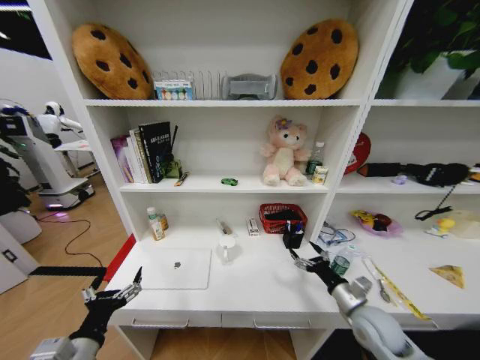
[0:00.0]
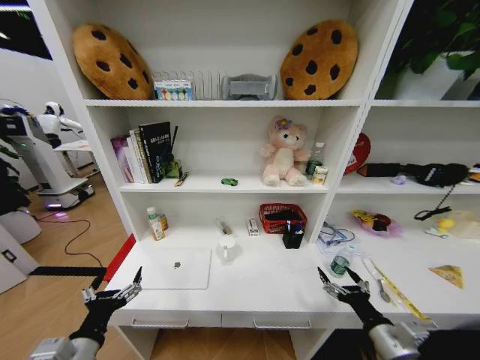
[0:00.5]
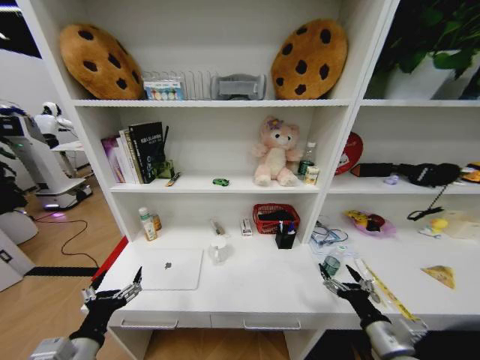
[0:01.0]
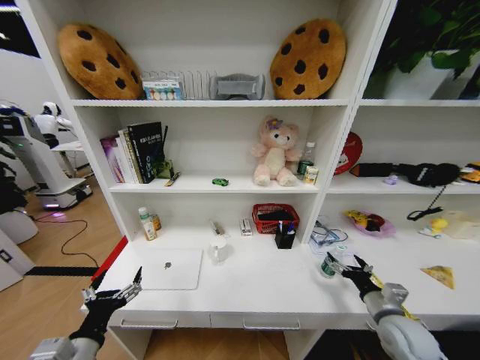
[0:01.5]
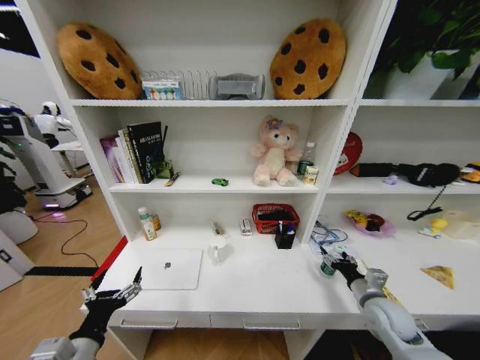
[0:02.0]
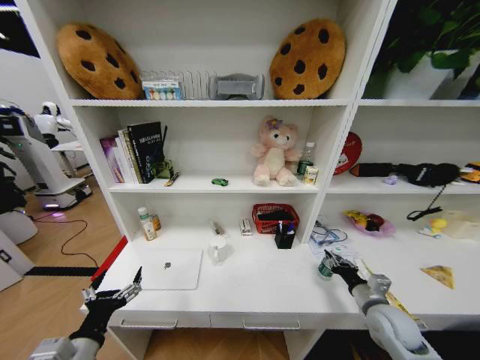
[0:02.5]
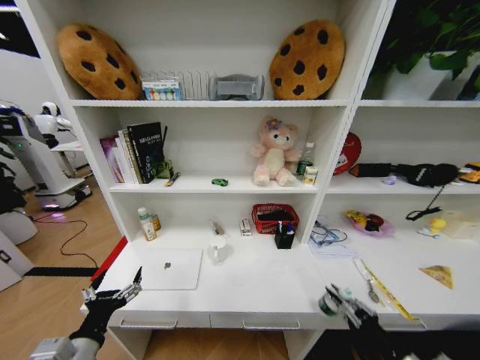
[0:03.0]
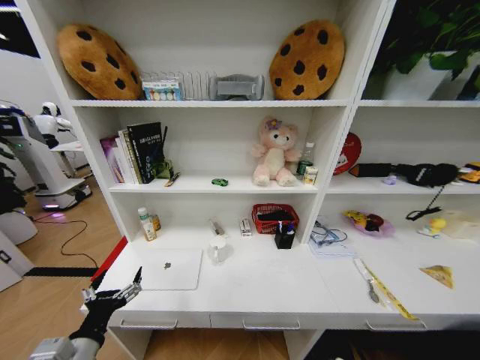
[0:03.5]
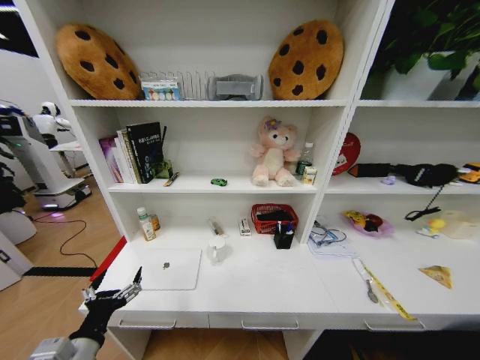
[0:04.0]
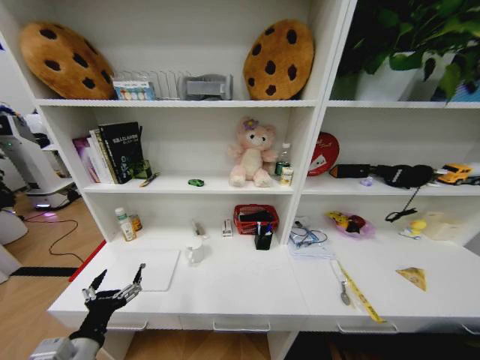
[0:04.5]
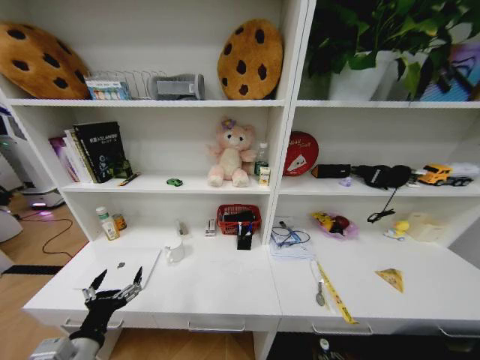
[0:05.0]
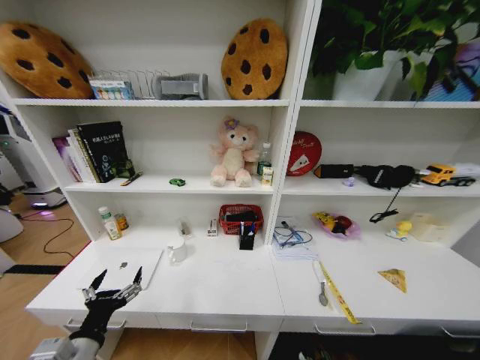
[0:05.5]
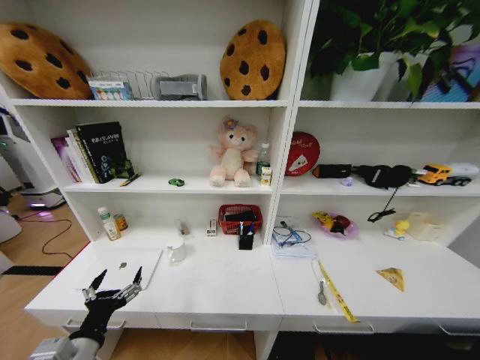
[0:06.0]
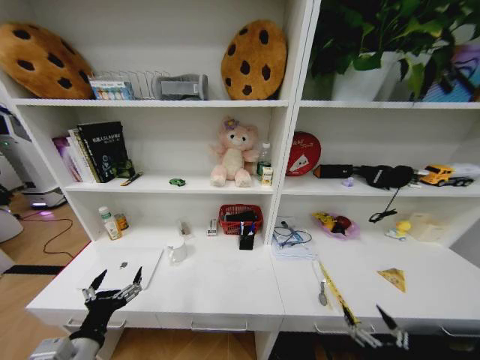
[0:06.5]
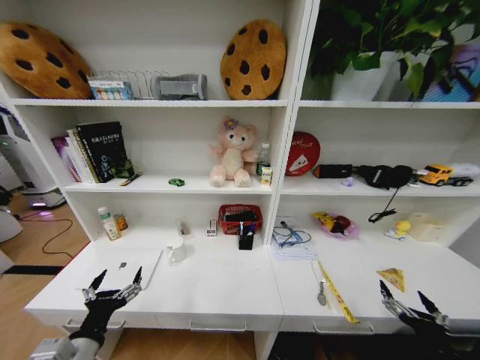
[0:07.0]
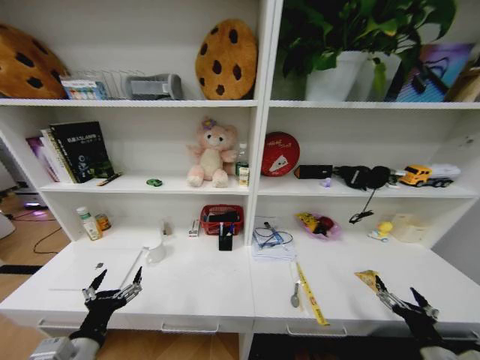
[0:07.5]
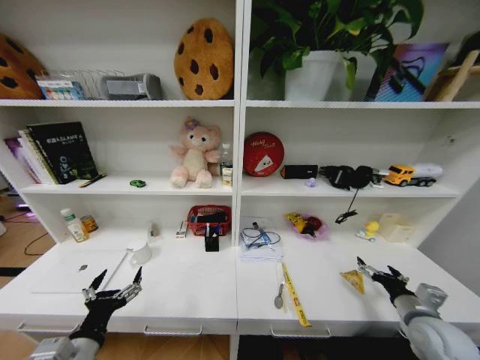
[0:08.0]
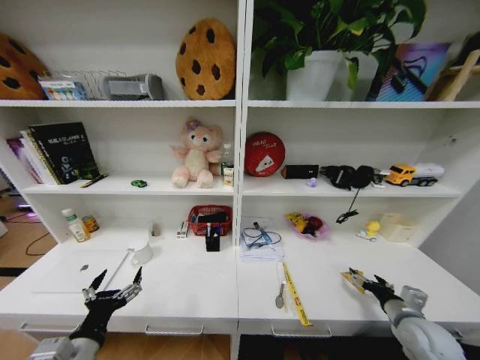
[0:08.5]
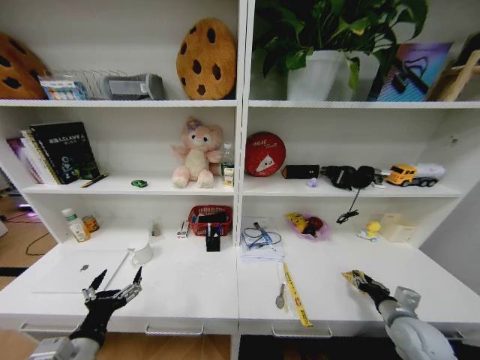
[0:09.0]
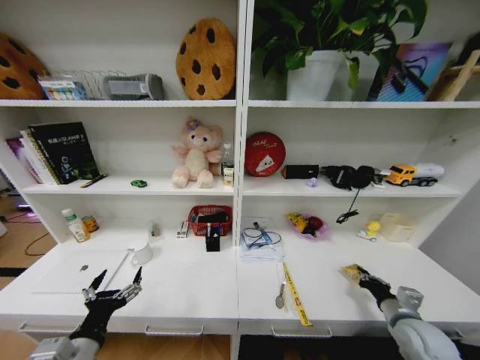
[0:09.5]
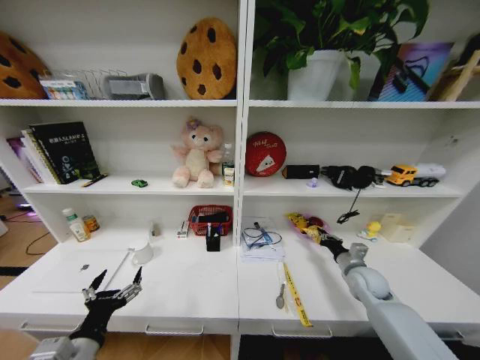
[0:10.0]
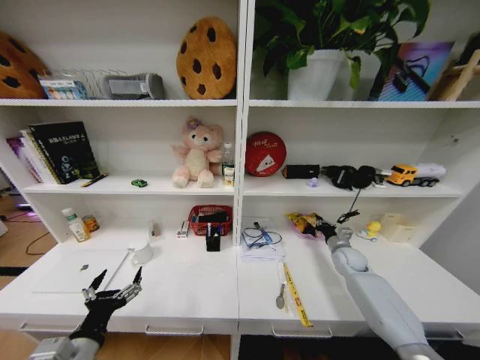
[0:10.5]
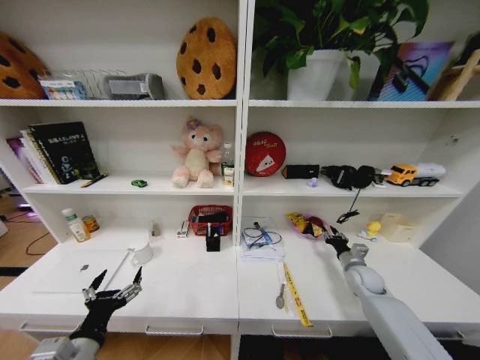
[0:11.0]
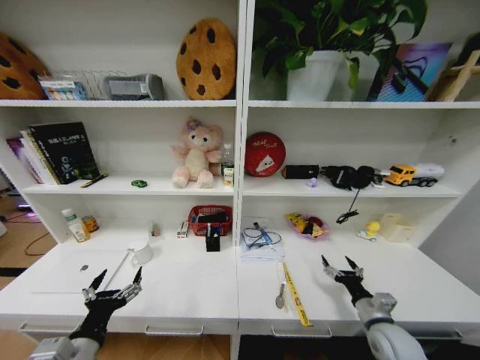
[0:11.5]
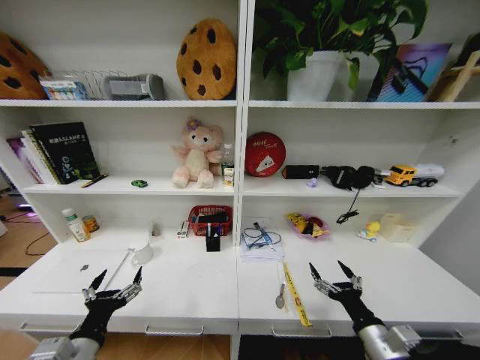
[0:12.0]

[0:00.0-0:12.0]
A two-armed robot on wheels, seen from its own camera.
Task of the whole recording: Organize the objects on the table.
0:00.0 to 0:02.0: The right gripper shifts approximately 5 cm to the right, and reaches roughly 10 cm backward, then returns.
0:02.0 to 0:04.0: The right gripper goes roughly 40 cm backward and downward, and closes.
0:04.0 to 0:06.0: The right gripper shifts roughly 5 cm to the left, reaches approximately 15 cm forward, then returns, and opens up.
0:06.0 to 0:08.0: The right gripper goes approximately 40 cm forward and upward.
0:08.0 to 0:10.0: The right gripper moves forward, approximately 15 cm, and closes its fingers.
0:10.0 to 0:12.0: The right gripper heads backward, covering some 25 cm, and opens up.

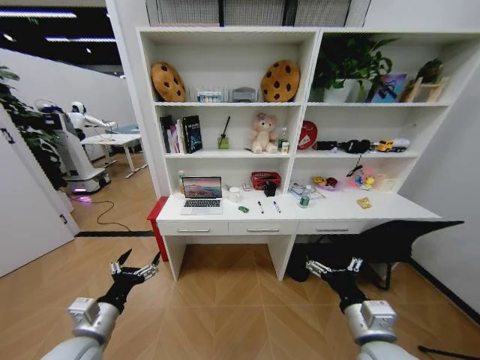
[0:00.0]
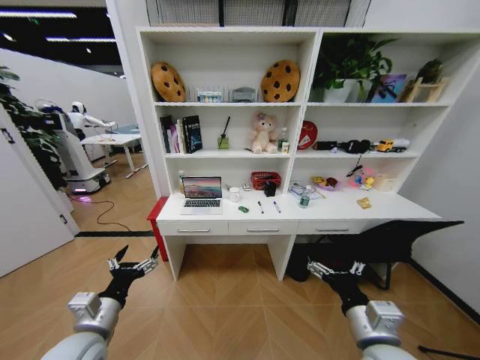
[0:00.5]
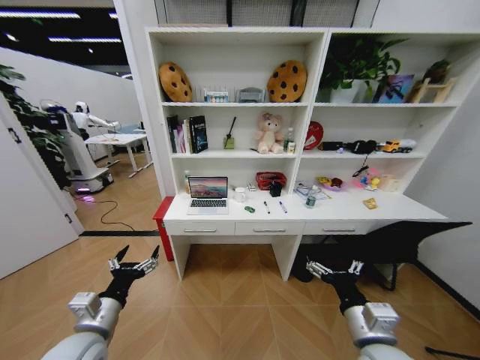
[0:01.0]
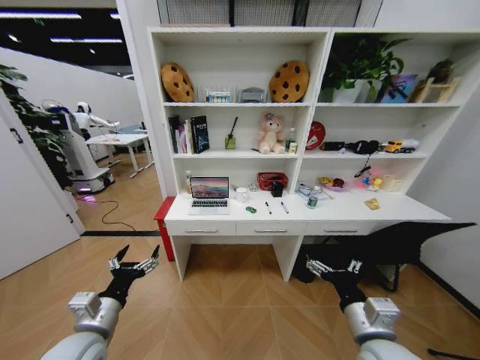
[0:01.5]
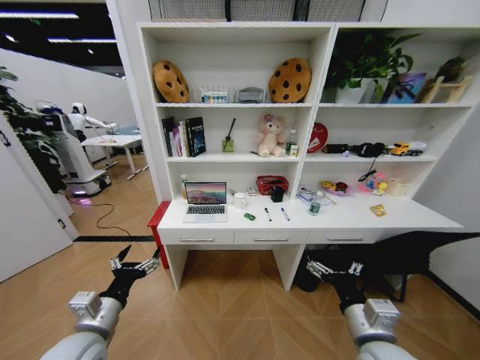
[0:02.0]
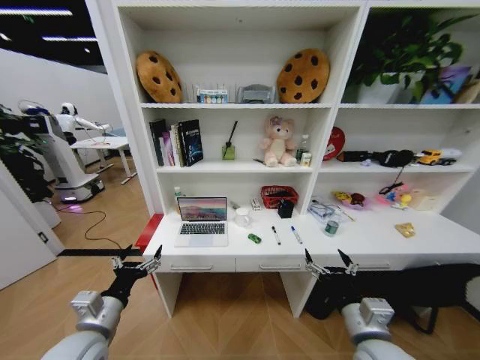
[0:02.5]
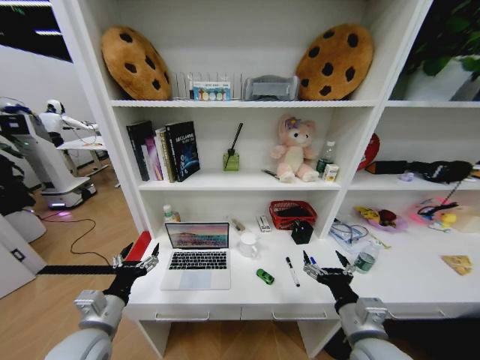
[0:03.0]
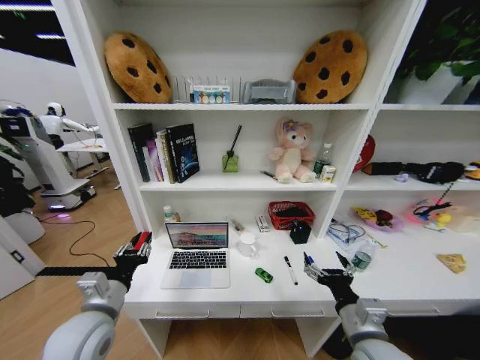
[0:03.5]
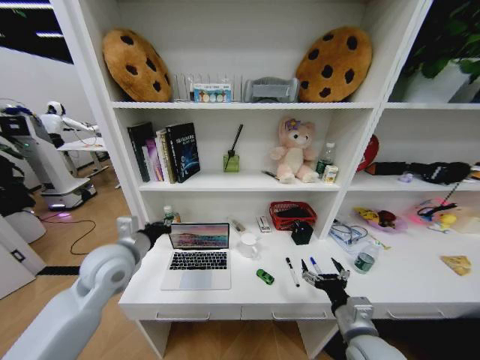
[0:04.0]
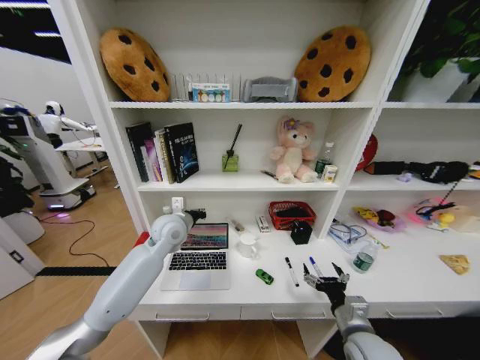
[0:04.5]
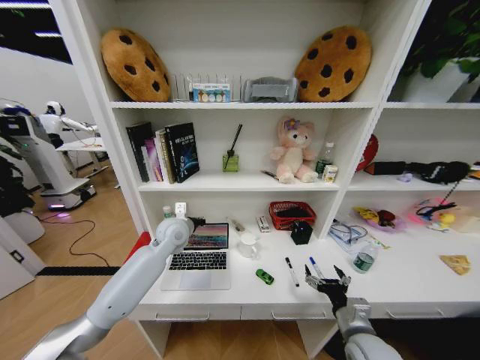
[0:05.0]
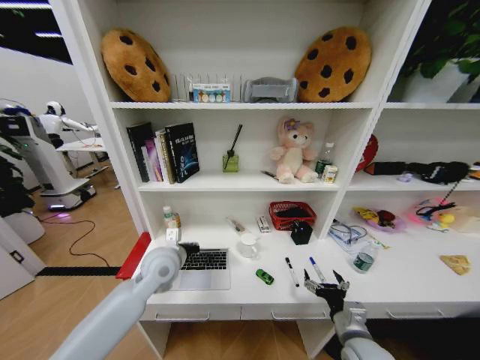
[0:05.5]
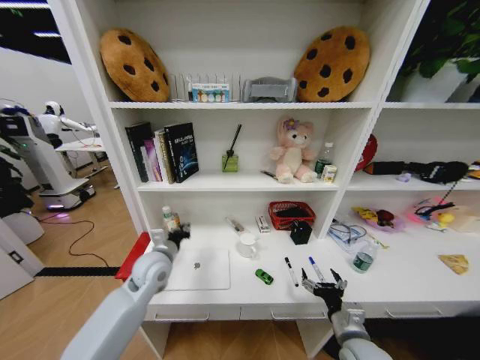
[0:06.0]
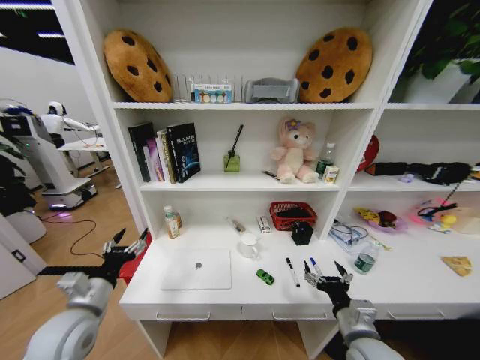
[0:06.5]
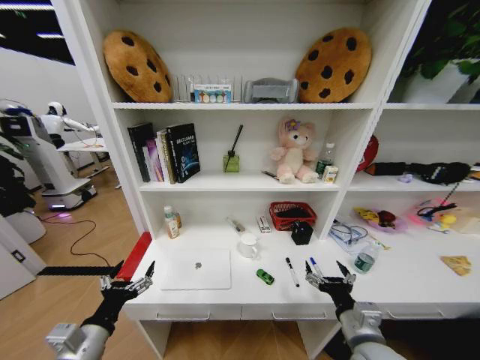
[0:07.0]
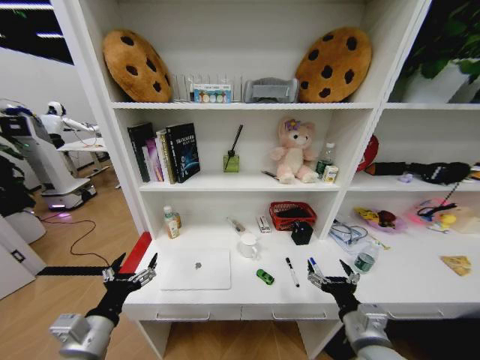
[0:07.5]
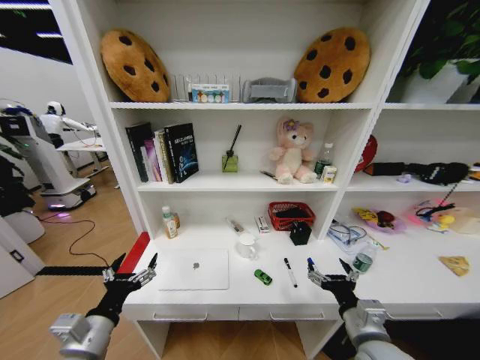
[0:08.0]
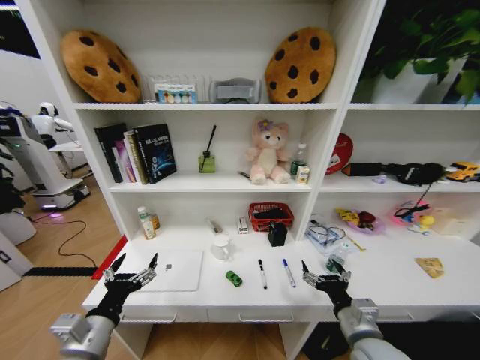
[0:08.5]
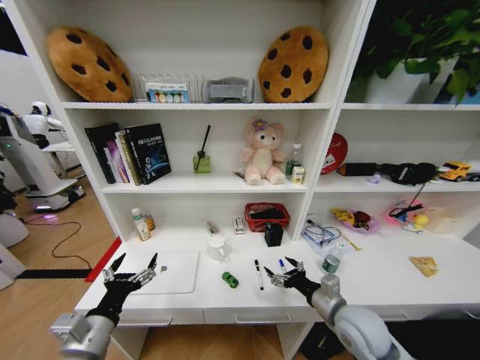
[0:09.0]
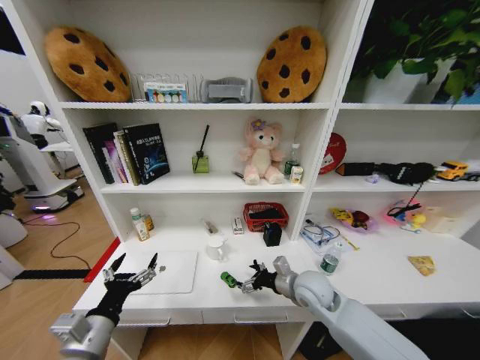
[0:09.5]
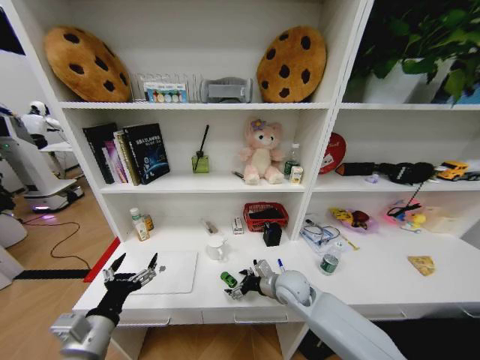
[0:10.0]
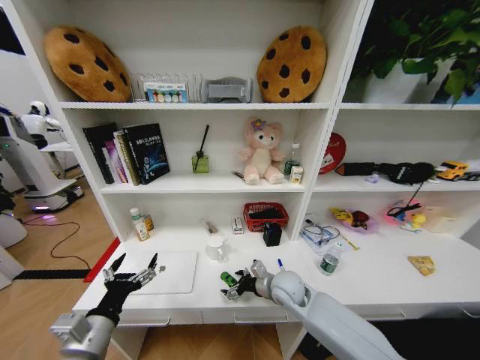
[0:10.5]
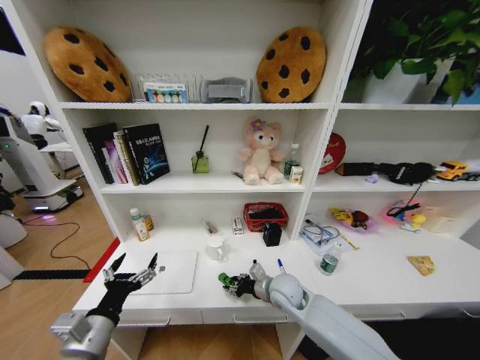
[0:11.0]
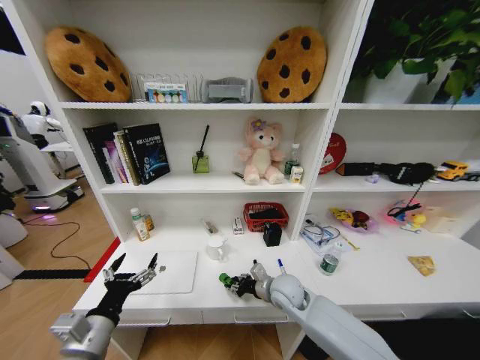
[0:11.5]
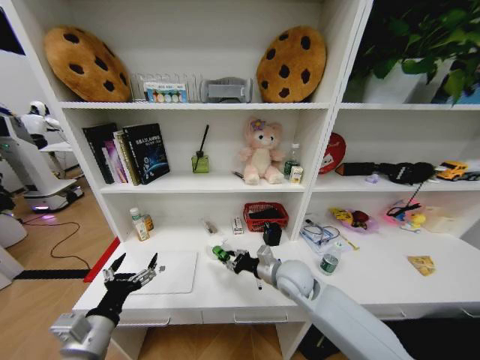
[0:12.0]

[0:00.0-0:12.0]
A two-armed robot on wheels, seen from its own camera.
Task of the whole recording: Organize the objects on the table.
0:02.0 to 0:04.0: The left gripper is displaced forward and upward by approximately 15 cm, and closes up. Meanwhile the right gripper shifts roughly 5 cm downward.
0:04.0 to 0:06.0: The left gripper moves downward, to the right and forward, about 10 cm.
0:06.0 to 0:08.0: The left gripper heads backward, covering about 20 cm, and opens up. The right gripper is displaced upward by some 5 cm.
0:08.0 to 0:10.0: The right gripper moves forward and to the left, some 20 cm.
0:10.0 to 0:12.0: The right gripper goes some 5 cm upward, and closes.

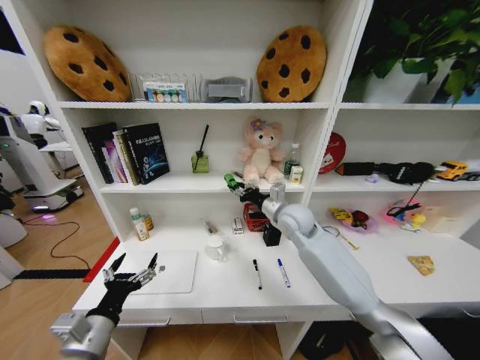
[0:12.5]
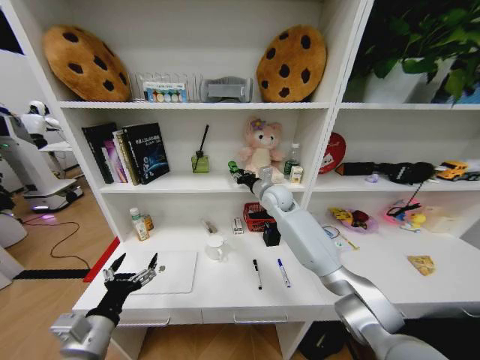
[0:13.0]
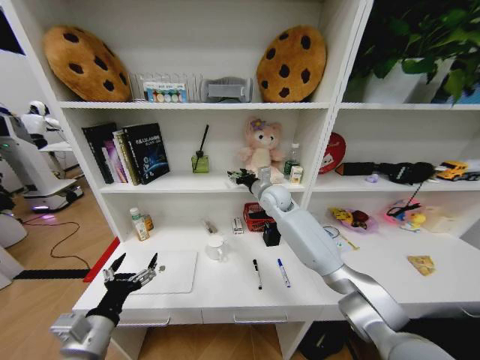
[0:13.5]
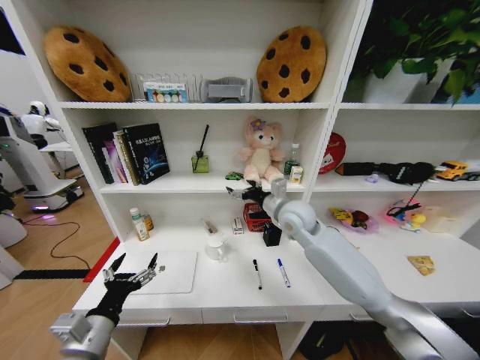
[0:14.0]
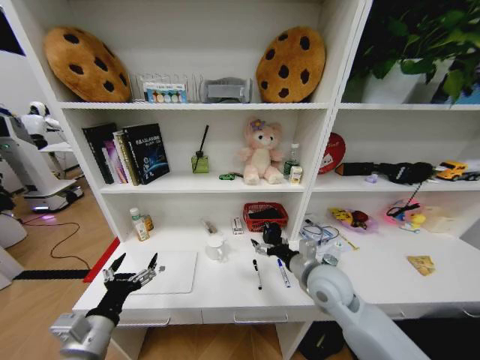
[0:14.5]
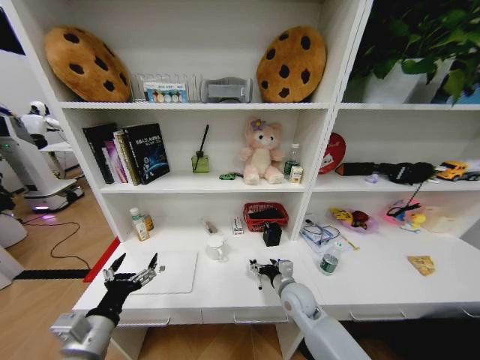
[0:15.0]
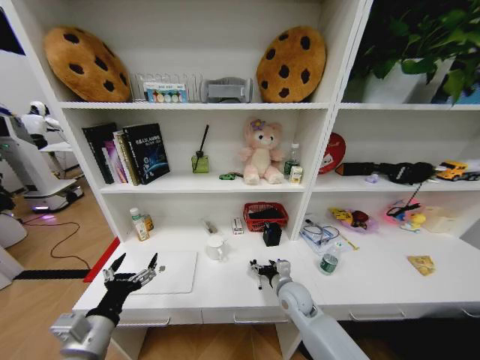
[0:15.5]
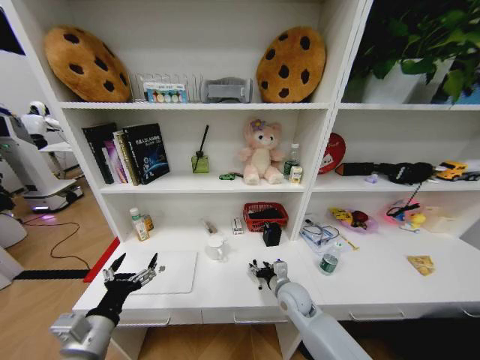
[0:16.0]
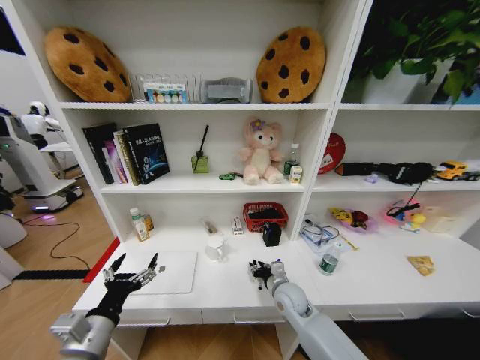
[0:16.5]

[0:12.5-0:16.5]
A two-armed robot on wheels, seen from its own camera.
Task of the whole recording: Organize the objects on the table.
0:12.5 to 0:14.5: The right gripper heads backward and downward, covering some 20 cm, and opens its fingers.
0:14.5 to 0:16.5: The right gripper moves downward, approximately 15 cm, and closes up.
